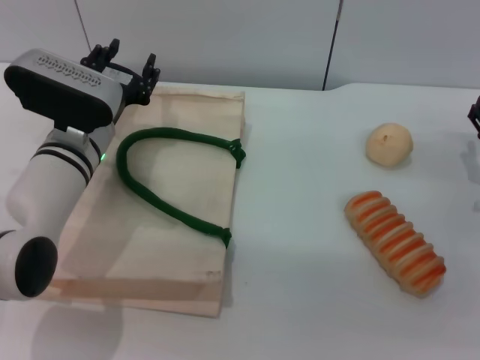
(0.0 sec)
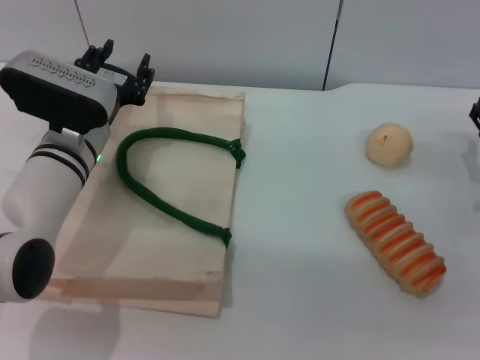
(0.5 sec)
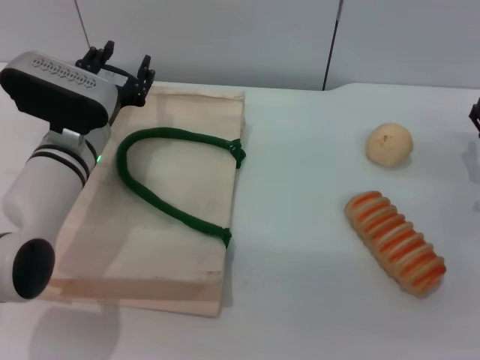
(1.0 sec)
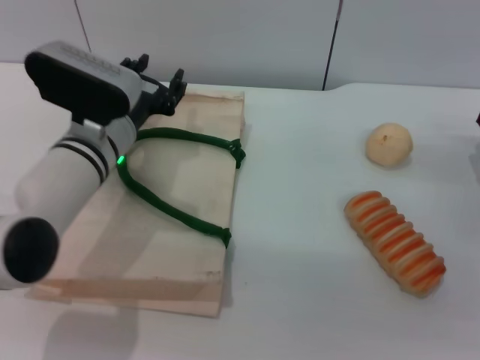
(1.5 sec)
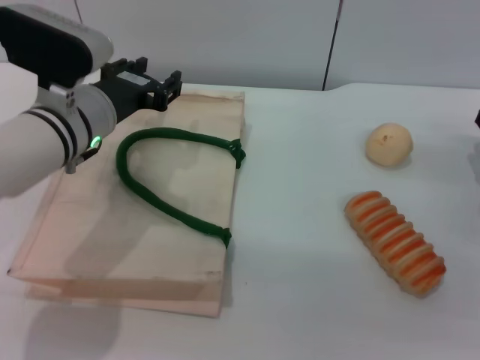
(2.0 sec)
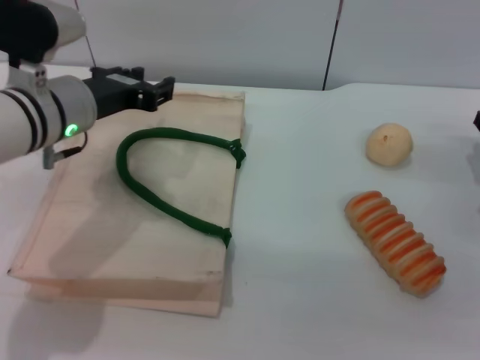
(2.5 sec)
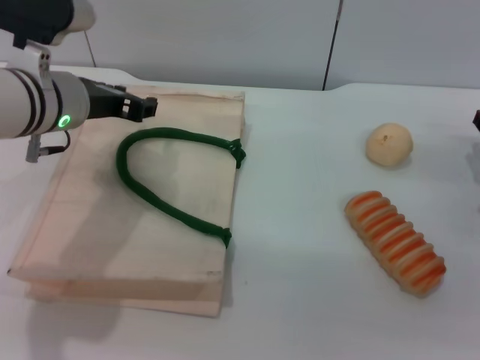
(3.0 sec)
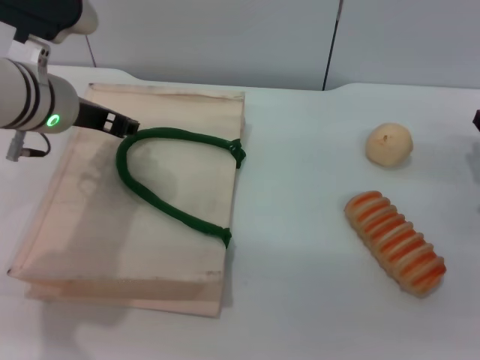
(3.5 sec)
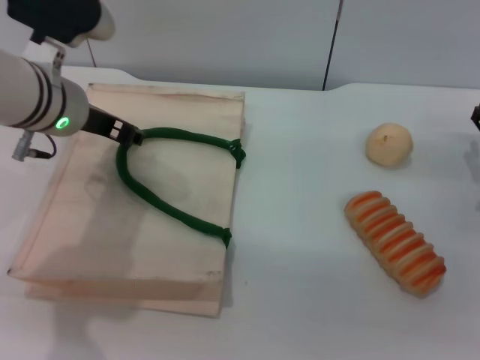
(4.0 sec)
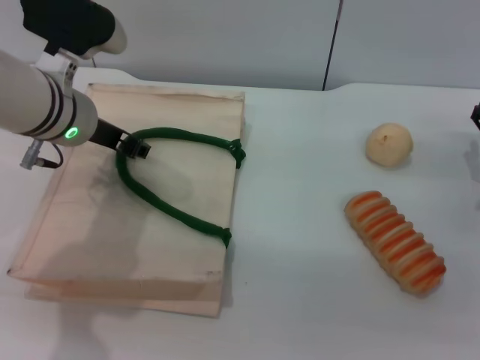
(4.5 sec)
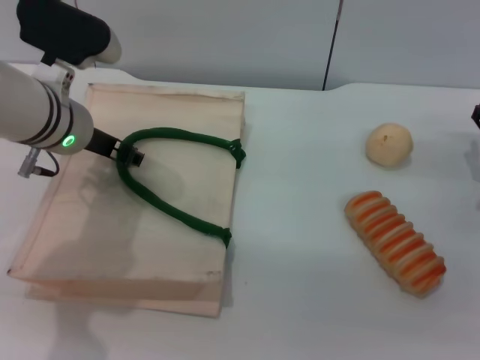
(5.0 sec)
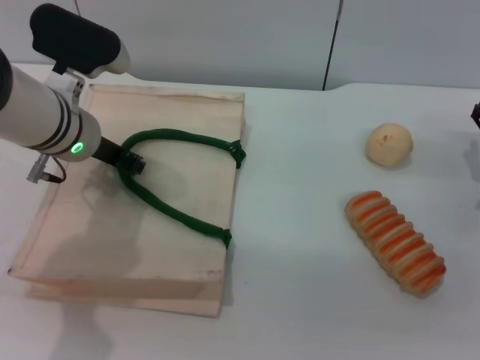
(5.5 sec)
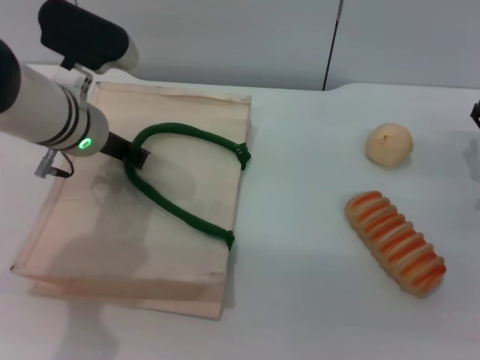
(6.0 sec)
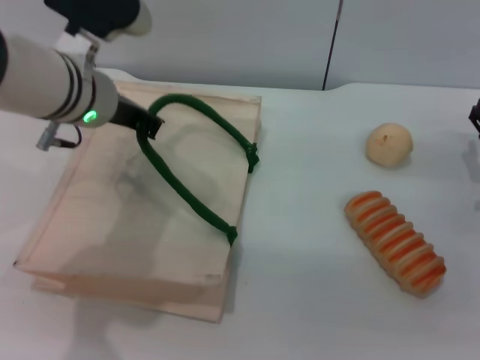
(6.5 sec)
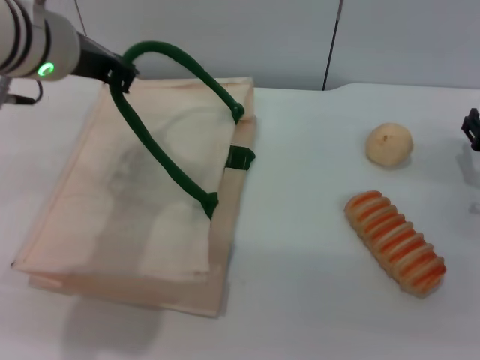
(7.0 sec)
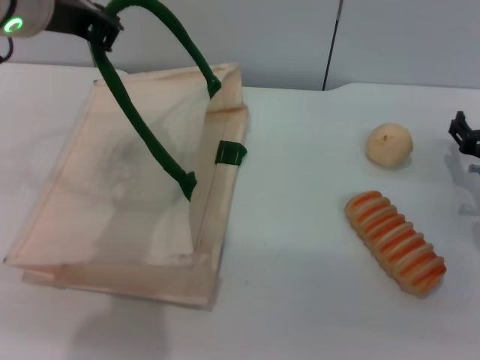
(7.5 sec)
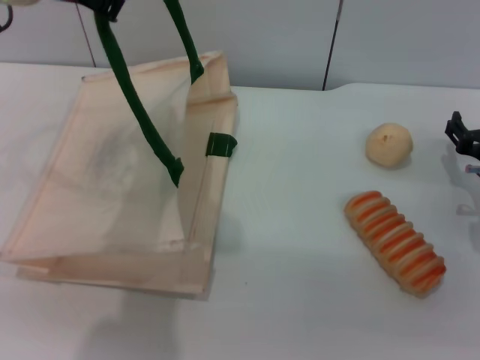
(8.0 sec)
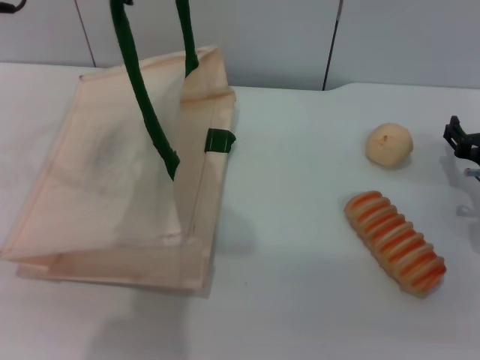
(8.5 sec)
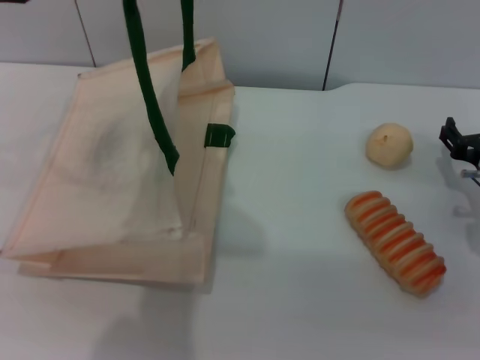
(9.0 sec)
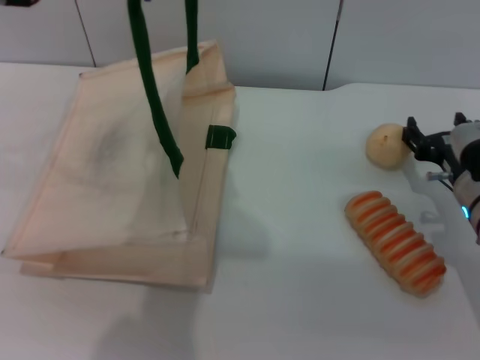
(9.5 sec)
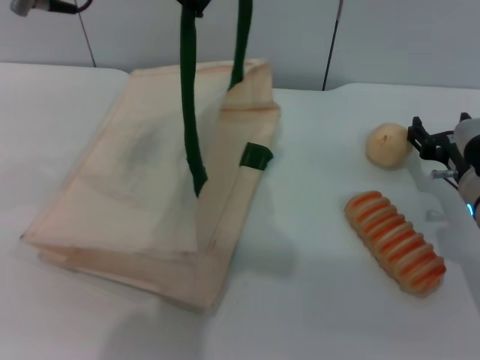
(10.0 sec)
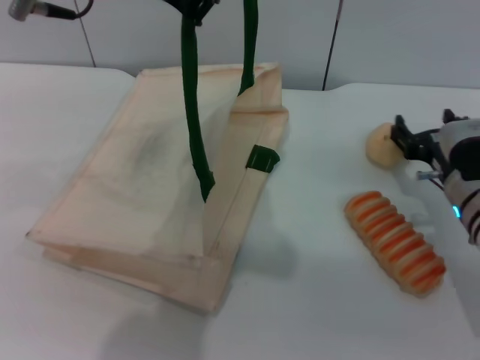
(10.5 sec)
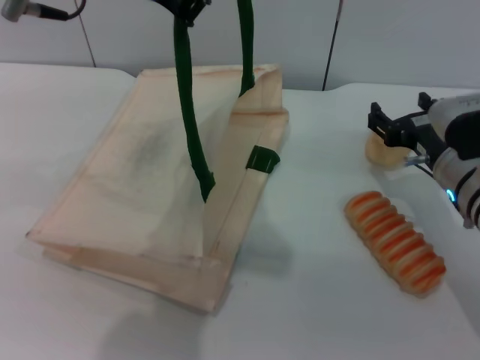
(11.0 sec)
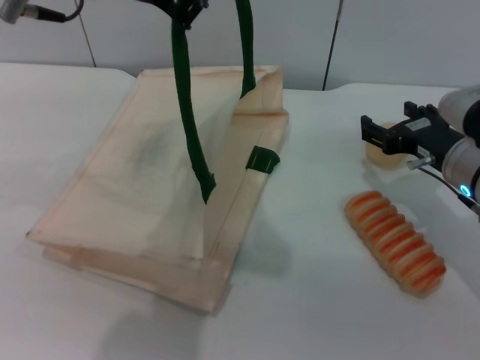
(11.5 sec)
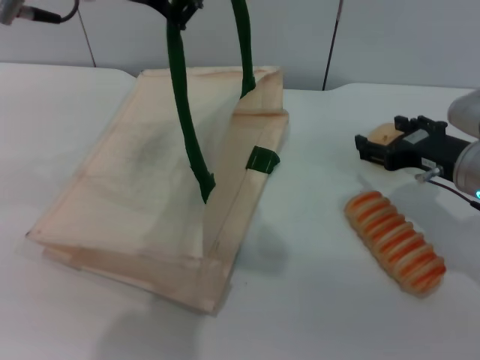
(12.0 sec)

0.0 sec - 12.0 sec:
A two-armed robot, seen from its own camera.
Task of the whole recording: pick up the bread and egg yolk pastry from the table and place it in the white handbag.
Step, 0.0 sec - 6.5 sec: Lift the woven bag with the left gripper to open it.
0.0 sec - 2.0 sec: The left gripper moves upward, approximately 5 cm.
4.0 sec - 6.0 sec: The left gripper closes its fingers.
6.0 sec - 8.0 sec: The left gripper shifts roughly 15 cm upward.
8.0 sec - 10.0 sec: The left gripper moves about 5 cm.
10.0 sec - 12.0 sec: The right gripper shifts about 5 cm upward.

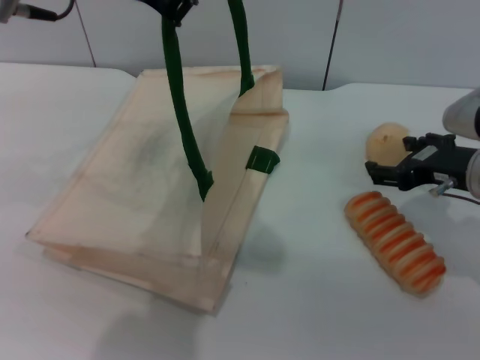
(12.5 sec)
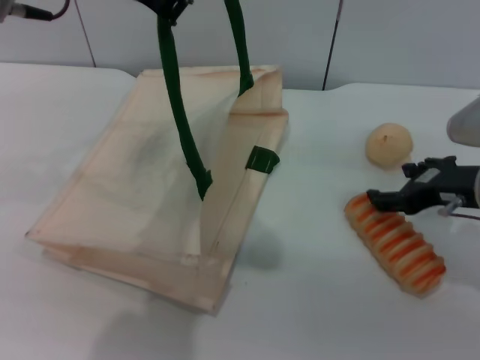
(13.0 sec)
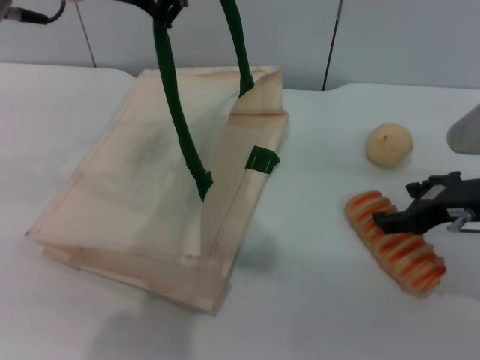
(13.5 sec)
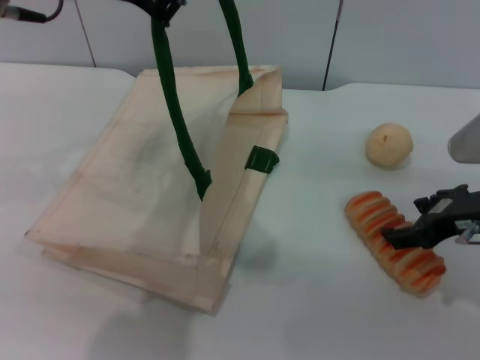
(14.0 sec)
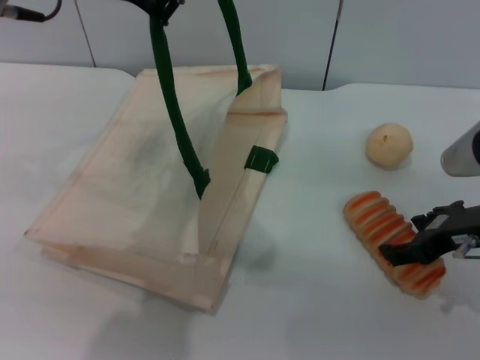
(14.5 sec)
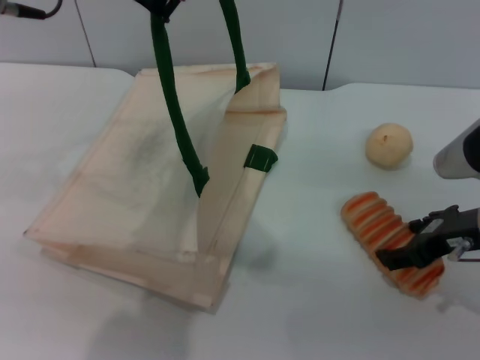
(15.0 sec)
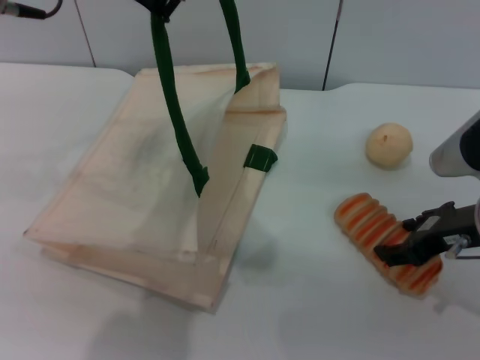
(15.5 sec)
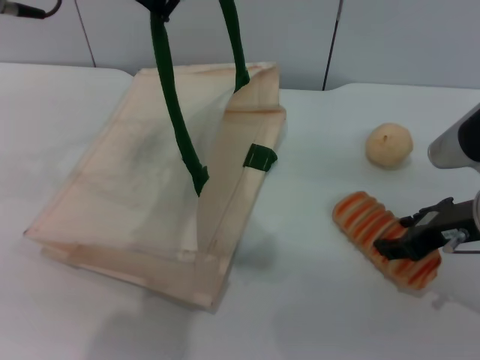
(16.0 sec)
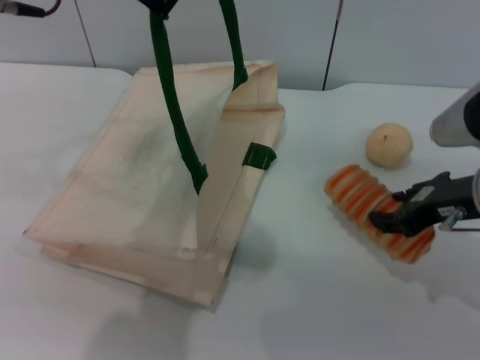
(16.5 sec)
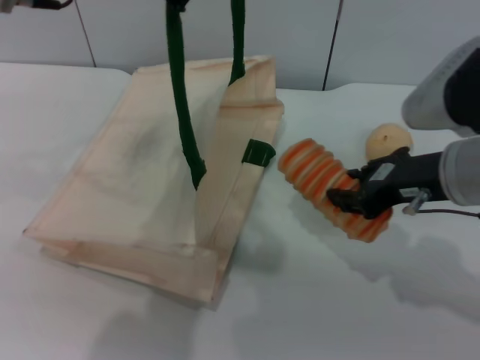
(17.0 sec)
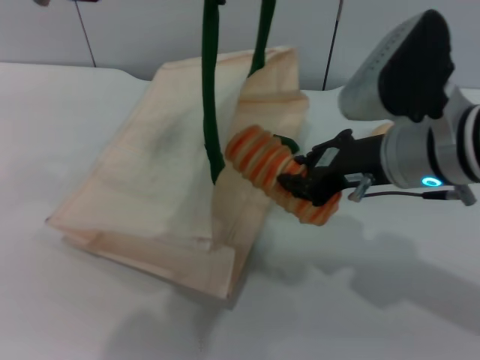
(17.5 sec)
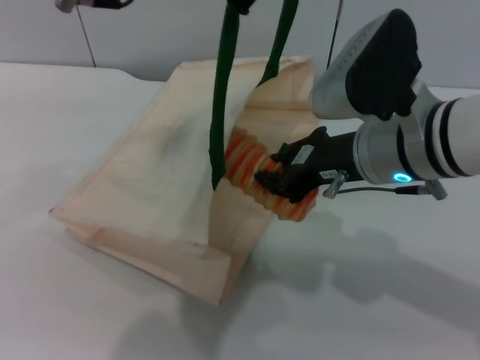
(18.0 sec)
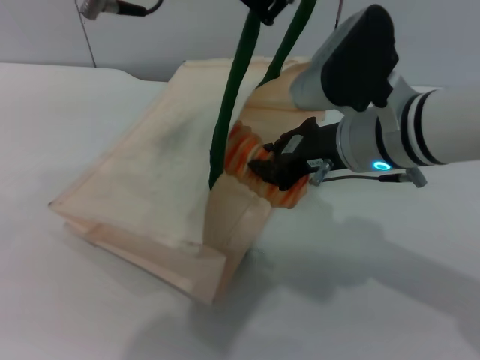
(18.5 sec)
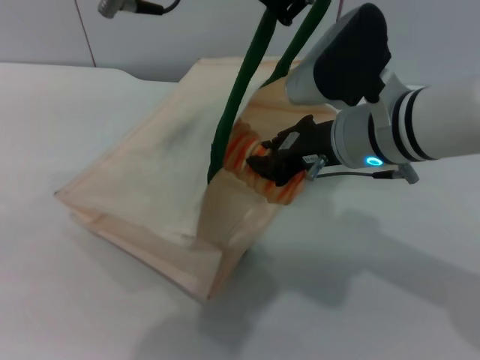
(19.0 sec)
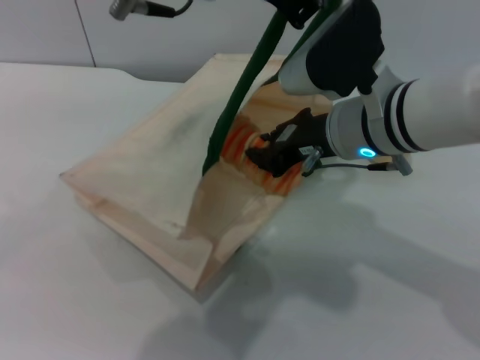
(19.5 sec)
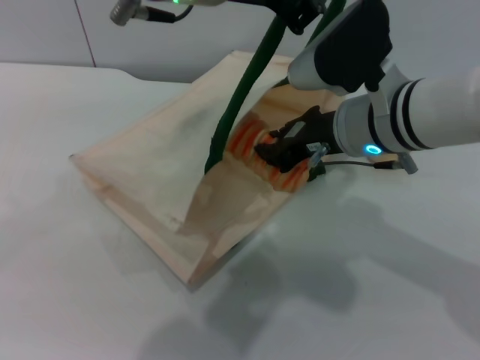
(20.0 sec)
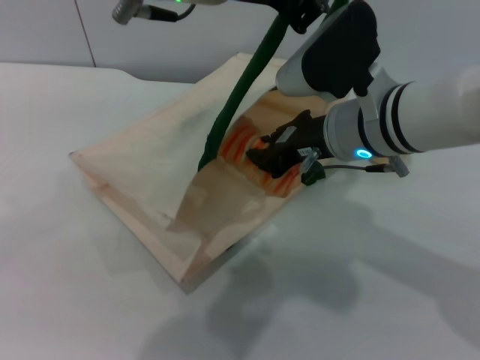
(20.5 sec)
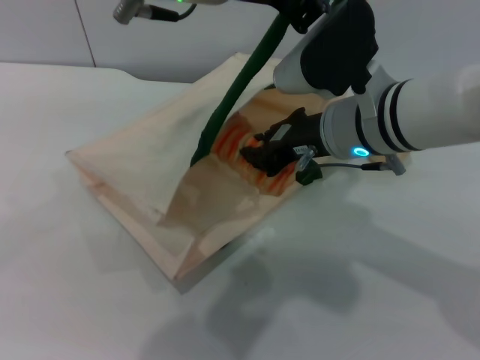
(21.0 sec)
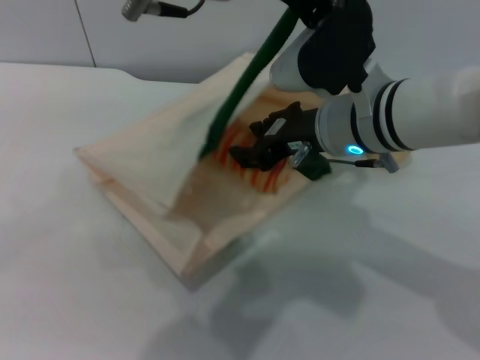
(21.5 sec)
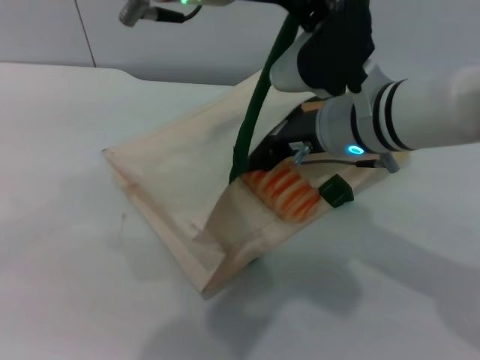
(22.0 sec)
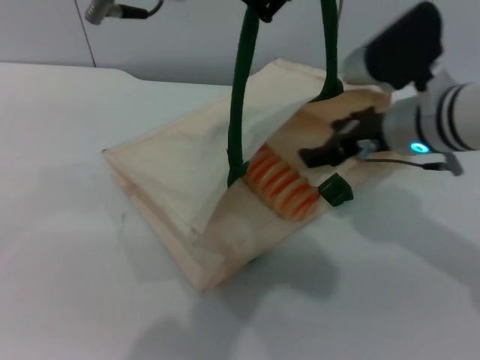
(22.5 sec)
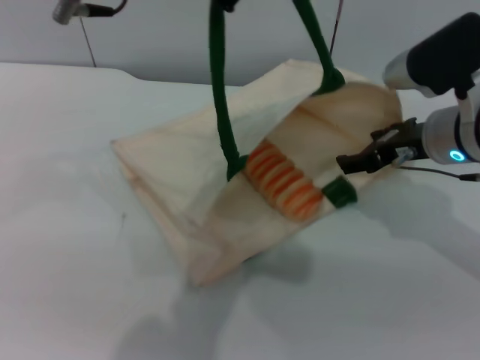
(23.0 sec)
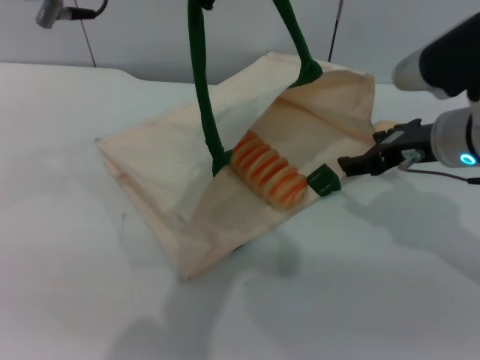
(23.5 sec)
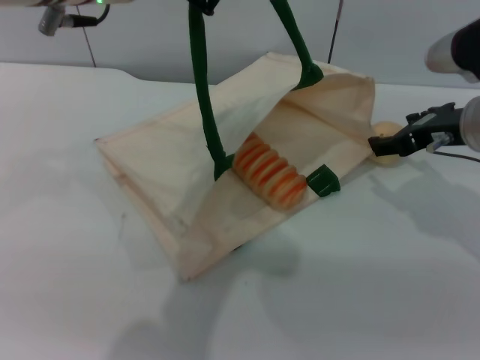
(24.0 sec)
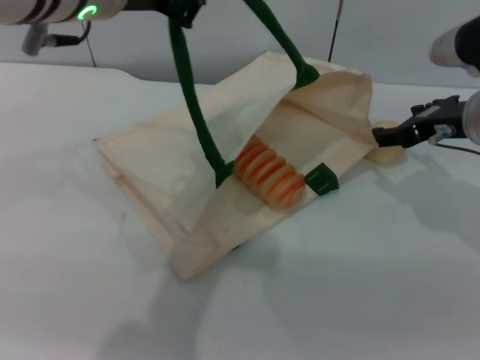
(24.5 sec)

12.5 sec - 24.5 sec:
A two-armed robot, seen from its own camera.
Task of the whole recording: pick up the bread and egg yolk pastry from the table and place it in the white handbag.
Step, 12.5 sec - 16.5 sec: Pick up the bread with the right gripper.
Step, 17.0 sec - 23.0 sec: Place the bread into the woven bag with the right gripper.
14.5 sec - 16.5 sec: The right gripper closes.
16.5 sec - 18.5 sec: The right gripper travels to the left by approximately 10 cm, and closes up; the left gripper moves to the right, some 5 cm.
18.5 sec - 20.5 sec: The grippers make only small movements.
20.5 sec - 22.5 sec: The right gripper heads to the right, covering about 5 cm, and opens up.
22.5 sec - 24.5 sec: The right gripper is displaced to the right by some 5 cm. Meanwhile the left gripper ends up approximately 5 cm from where it was.

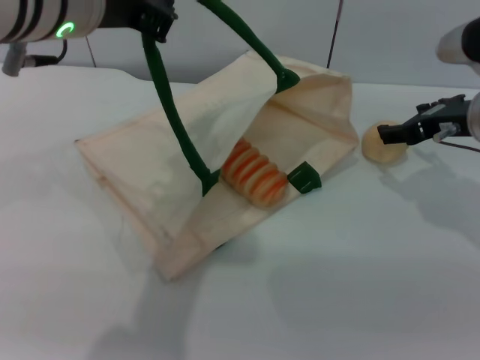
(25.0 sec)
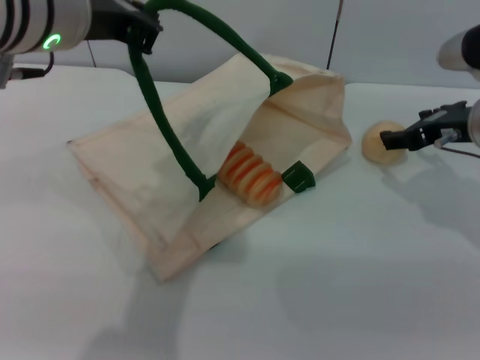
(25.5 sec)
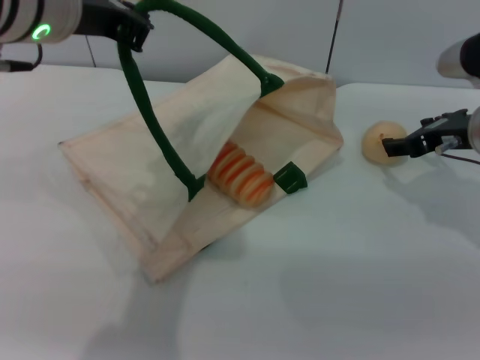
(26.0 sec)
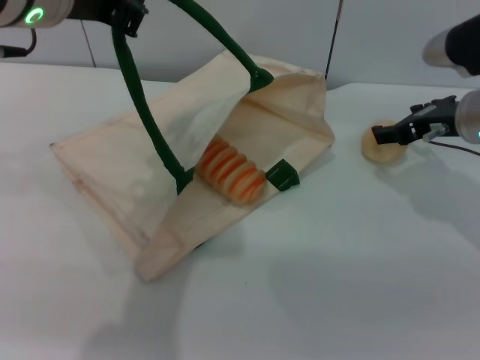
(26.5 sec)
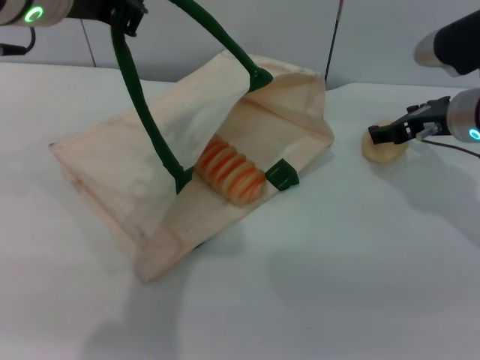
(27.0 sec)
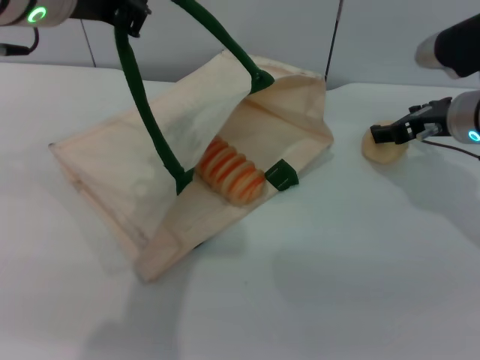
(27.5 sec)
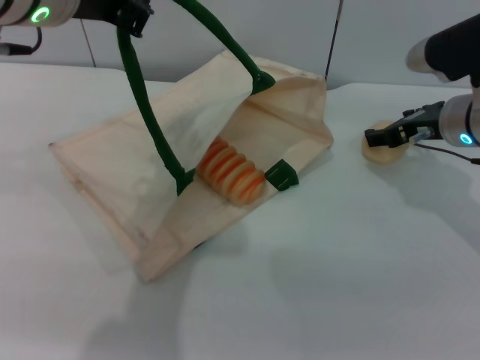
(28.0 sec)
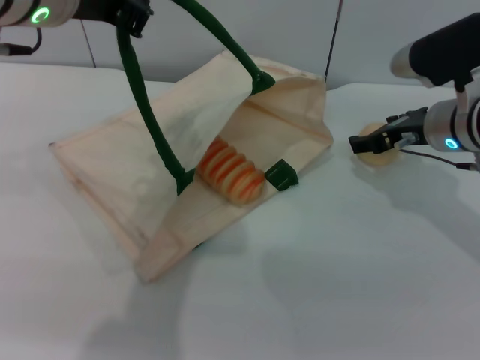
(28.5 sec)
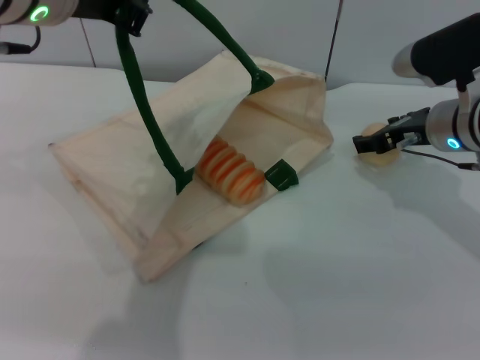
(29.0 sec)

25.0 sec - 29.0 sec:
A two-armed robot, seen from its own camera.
Task of the whole recording: pick up the bread and egg yolk pastry from the table and place it in the white handbag.
25.0 sec - 29.0 sec: The grippers stay close to where they were, moving slightly.
